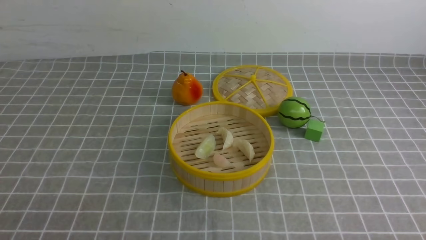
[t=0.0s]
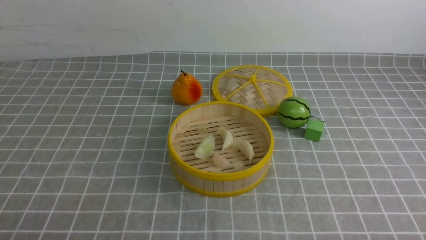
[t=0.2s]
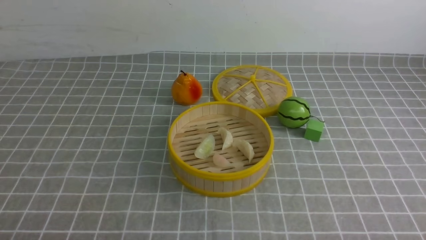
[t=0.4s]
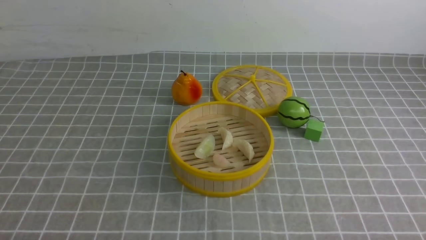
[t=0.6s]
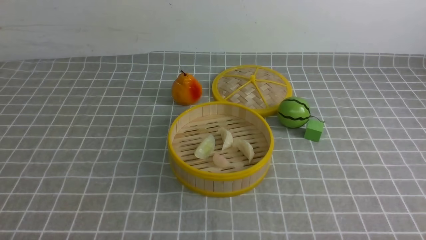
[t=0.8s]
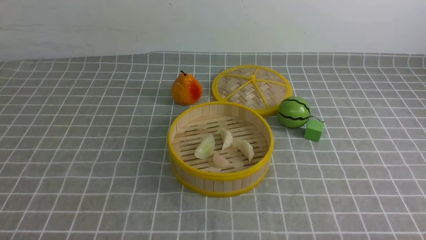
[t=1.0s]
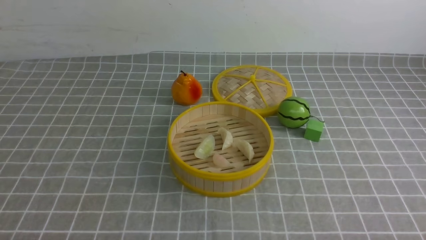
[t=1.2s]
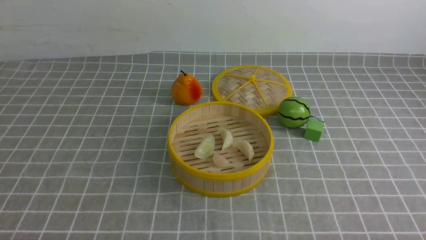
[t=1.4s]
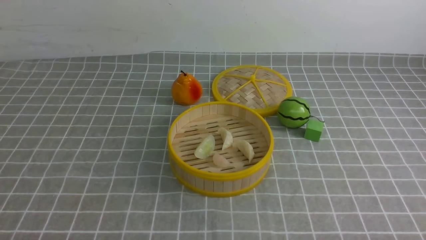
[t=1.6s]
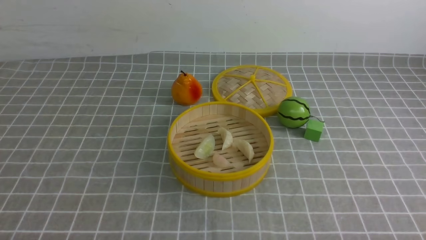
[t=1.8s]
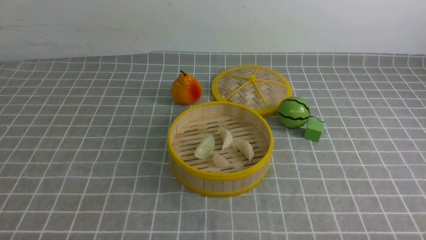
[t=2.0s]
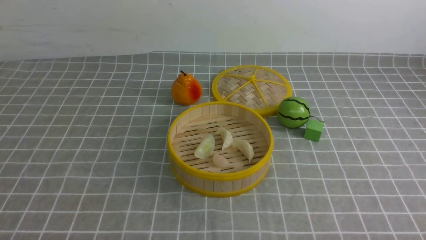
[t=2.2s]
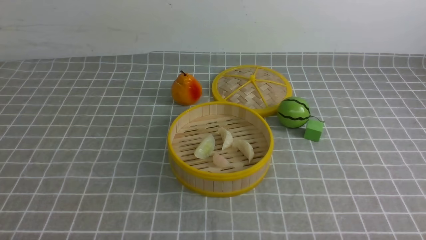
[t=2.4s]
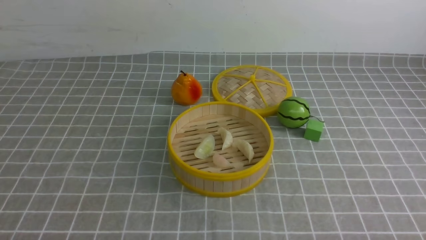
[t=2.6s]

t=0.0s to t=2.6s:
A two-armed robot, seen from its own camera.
Task of the whole recording: put the dumplings into the steamer on the table with the grey tablecloth.
t=1.2s to t=2.6s: Neither gripper changes place.

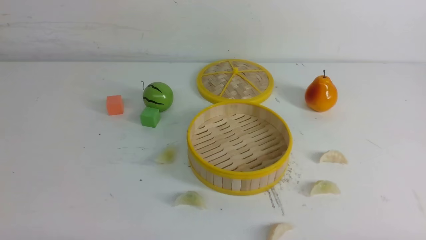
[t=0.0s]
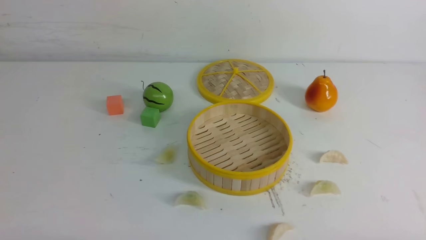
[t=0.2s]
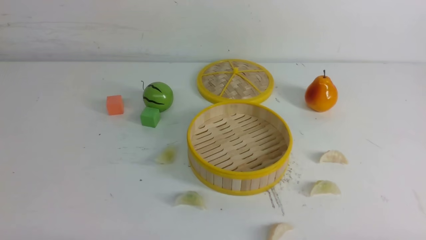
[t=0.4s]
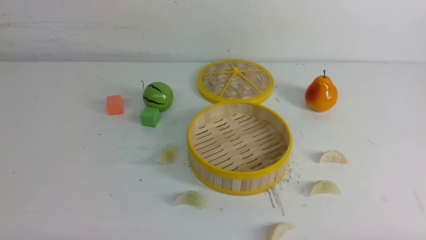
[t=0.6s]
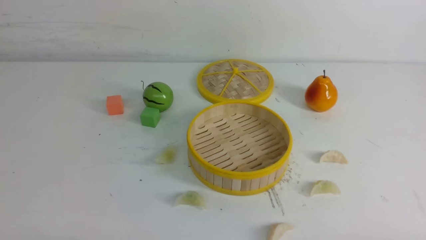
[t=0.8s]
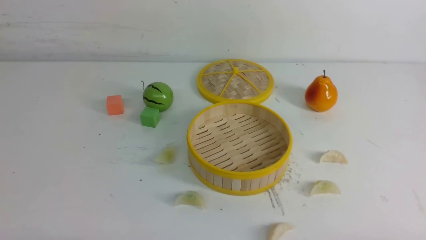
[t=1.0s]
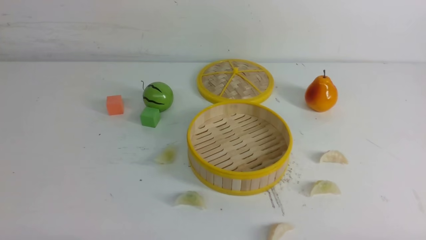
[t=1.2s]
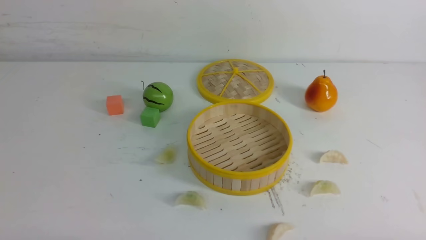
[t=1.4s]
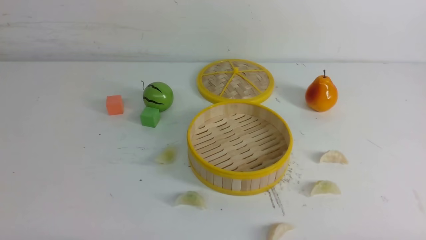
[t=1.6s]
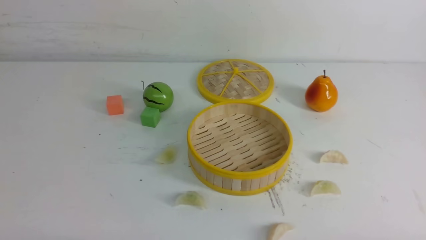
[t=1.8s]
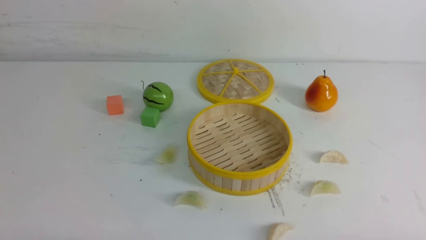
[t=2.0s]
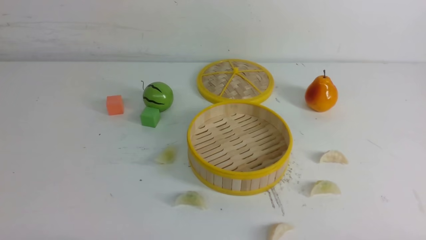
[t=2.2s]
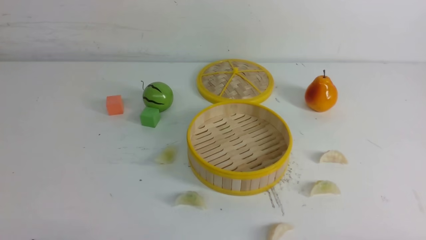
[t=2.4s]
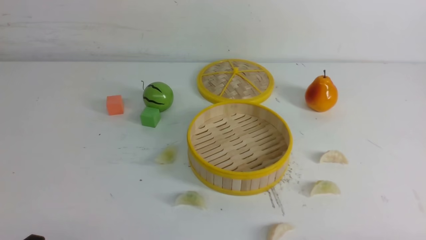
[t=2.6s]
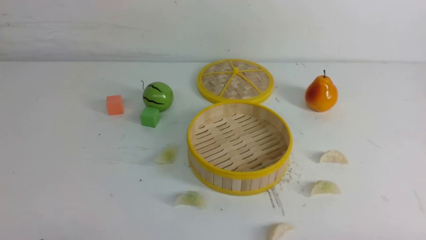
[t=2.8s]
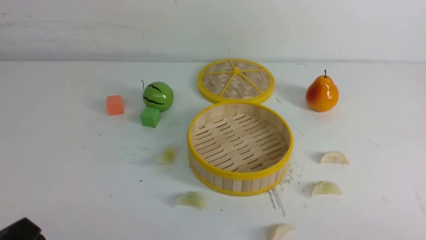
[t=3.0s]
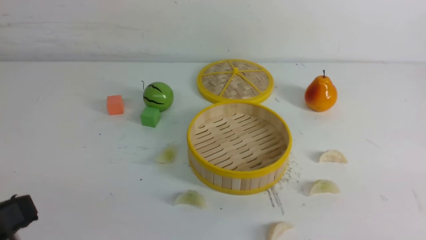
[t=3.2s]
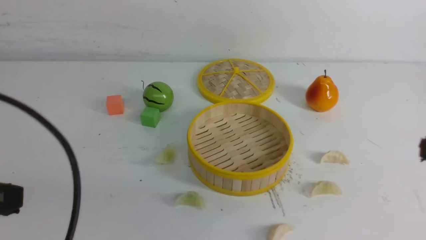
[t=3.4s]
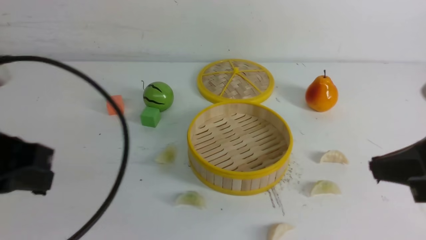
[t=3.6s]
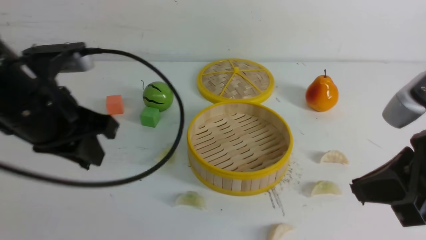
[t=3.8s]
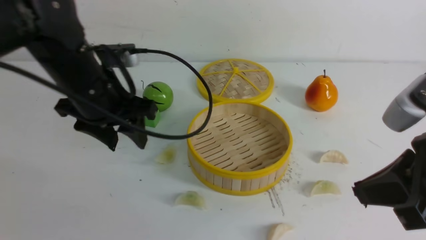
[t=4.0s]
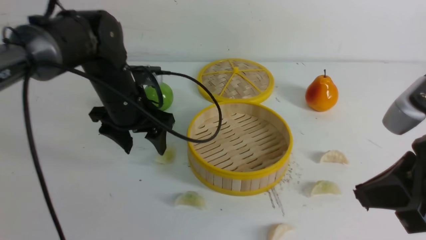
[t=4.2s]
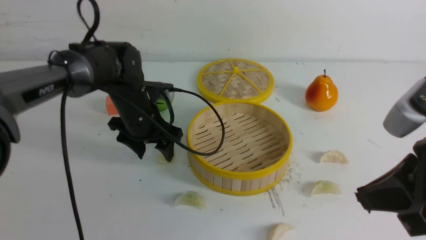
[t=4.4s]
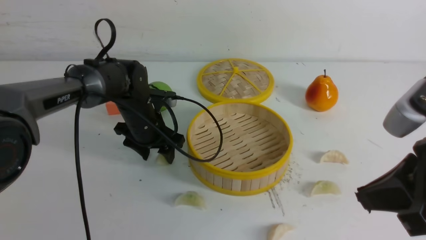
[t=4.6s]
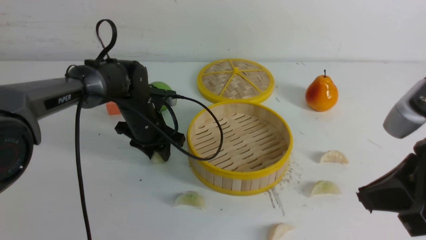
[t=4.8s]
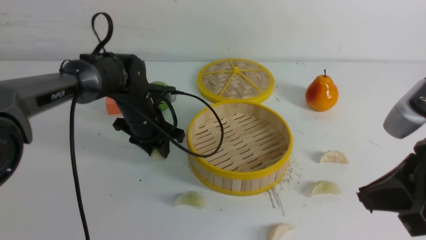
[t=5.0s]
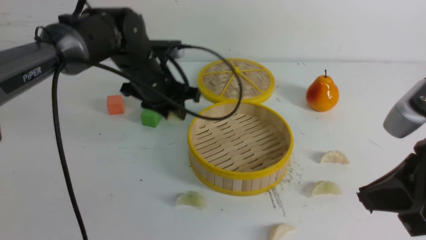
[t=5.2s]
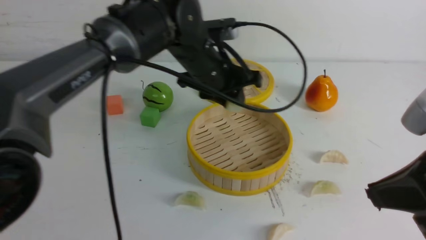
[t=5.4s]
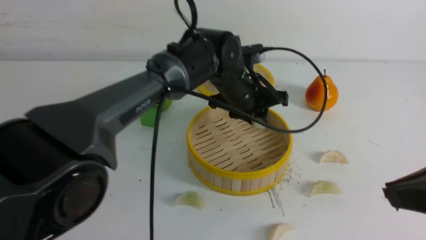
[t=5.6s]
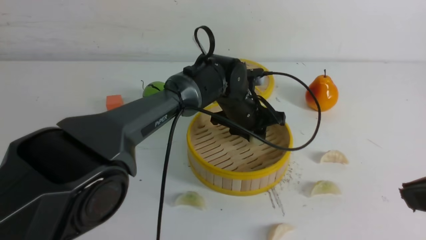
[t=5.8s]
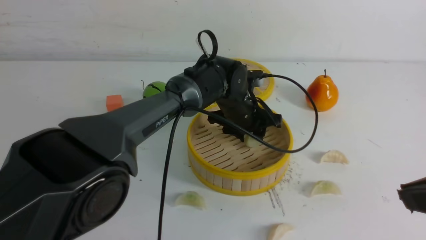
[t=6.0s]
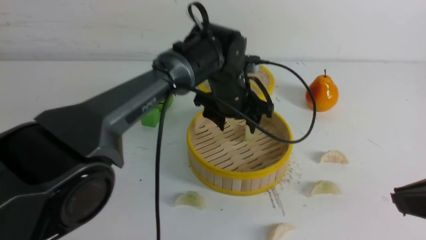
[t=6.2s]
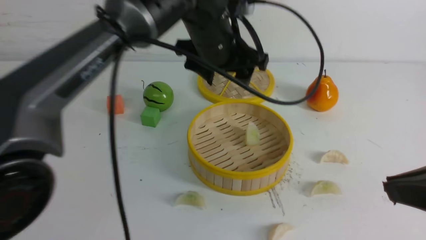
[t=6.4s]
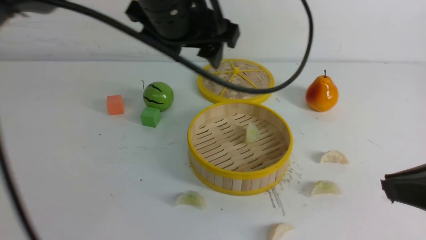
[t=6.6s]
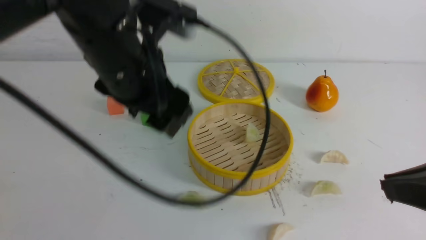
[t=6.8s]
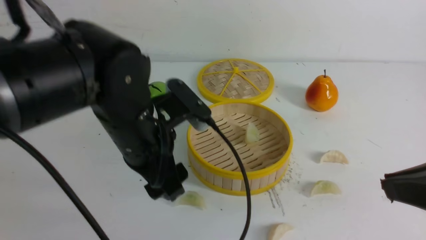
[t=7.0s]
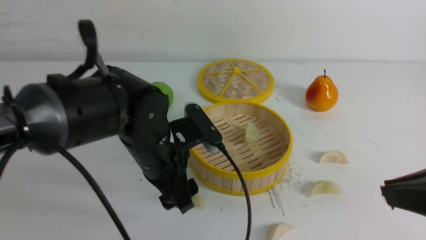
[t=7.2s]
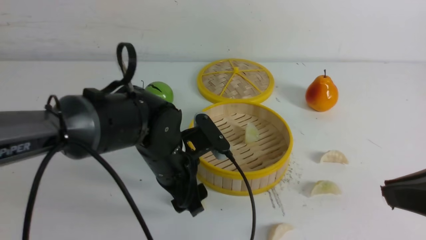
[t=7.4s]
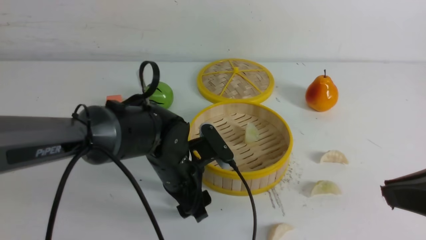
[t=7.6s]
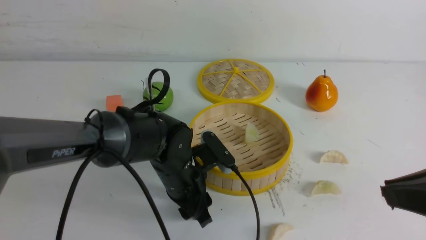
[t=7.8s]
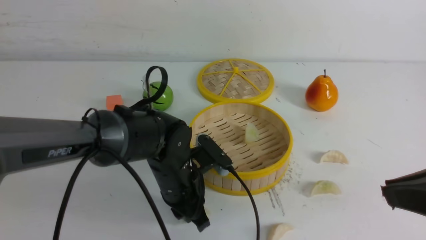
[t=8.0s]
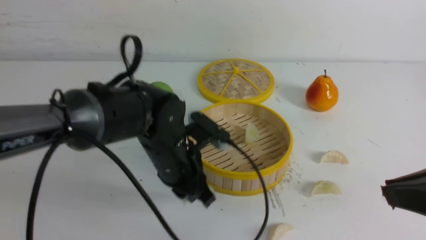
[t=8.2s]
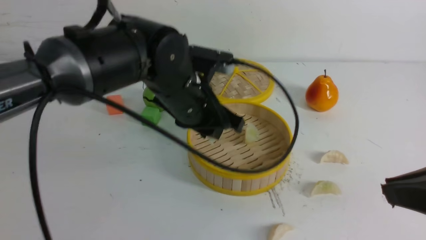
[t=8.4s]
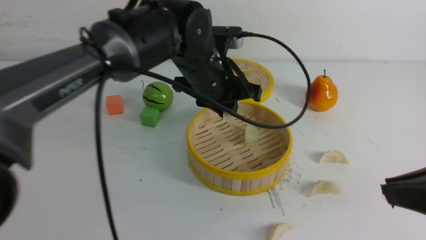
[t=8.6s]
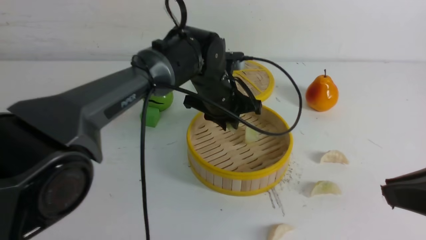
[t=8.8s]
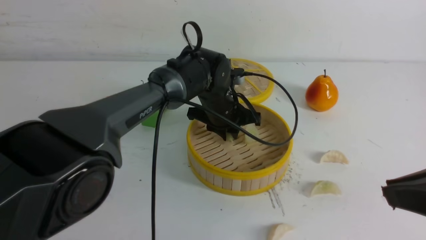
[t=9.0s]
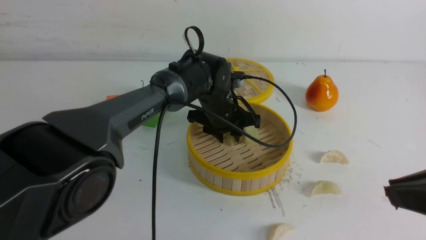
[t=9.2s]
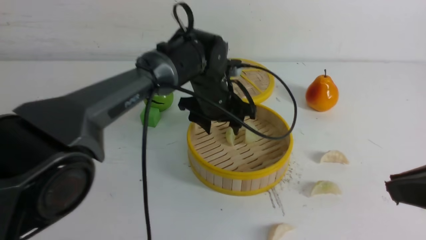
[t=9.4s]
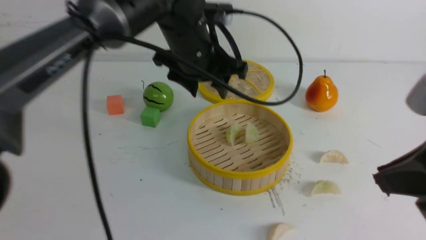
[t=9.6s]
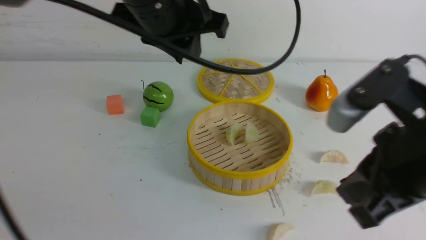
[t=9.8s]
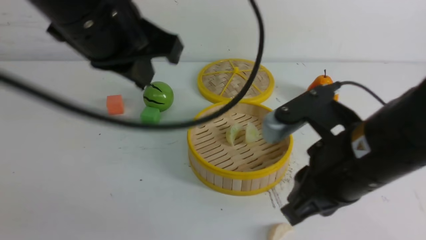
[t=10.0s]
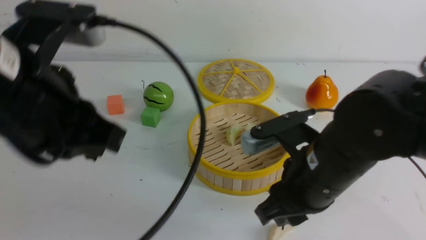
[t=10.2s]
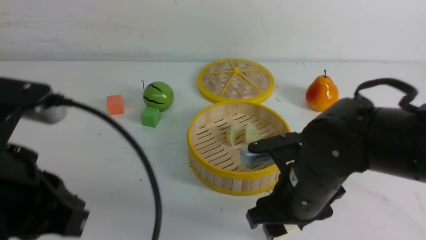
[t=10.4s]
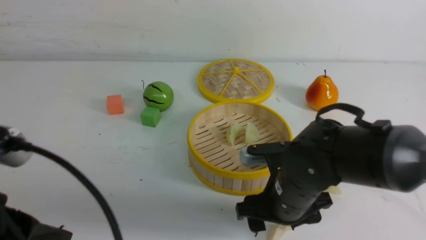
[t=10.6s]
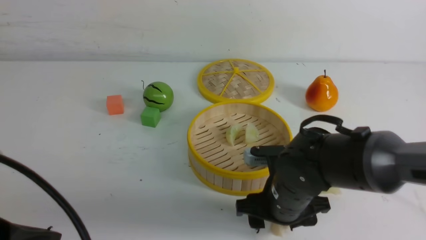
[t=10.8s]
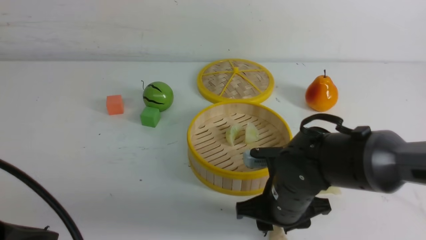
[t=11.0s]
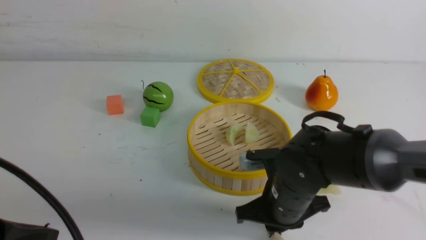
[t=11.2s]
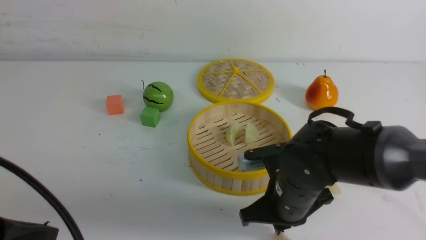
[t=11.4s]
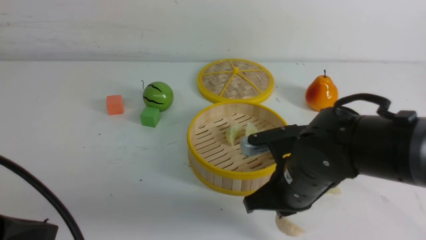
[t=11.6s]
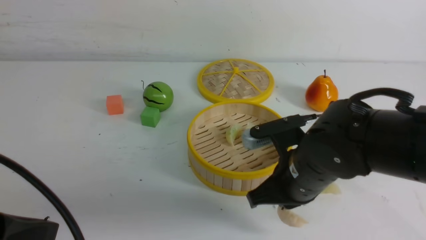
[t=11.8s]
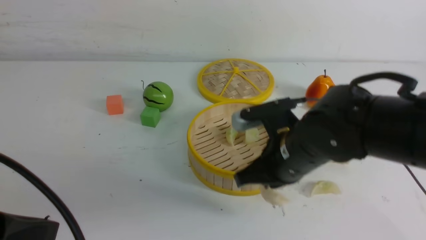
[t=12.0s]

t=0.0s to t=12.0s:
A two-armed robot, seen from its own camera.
Task of the whole recording: put the dumplings into the steamer on the white table.
Step, t=0.0s to t=5.0s: use the left arm to grab a dumpling.
Step, t=5.2s to t=6.2s: use the left arm to put the dumpling into the steamer.
Step, t=6.4s to t=8.0s: use the left arm to grab a dumpling.
Step, t=8.2s to t=9.4s: use the left arm to put the dumpling into the steamer.
Step, t=9.6s to t=11.4s: use the right arm to grab a dumpling.
t=0.0s to t=1.6s: The two grippers keep their place.
t=1.6s to t=3.0s: The left gripper heads upward, covering roughly 10 cm.
t=3.0s to t=4.4s: The right gripper is displaced forward, upward and to the left by approximately 15 cm. Meanwhile the left gripper goes roughly 35 cm forward, and opens its fingers.
t=4.4s to t=6.0s: The left gripper travels to the right by about 15 cm; the right gripper shifts by some 5 cm.
t=6.0s to t=7.6s: The left gripper heads backward and to the left, covering about 15 cm, and goes upward and returns, approximately 20 cm each way.
t=7.6s to t=9.0s: The left gripper travels forward and to the right by approximately 15 cm, and closes up.
t=9.0s to t=10.4s: The right gripper is displaced to the left, downward and forward by approximately 20 cm, and opens. Meanwhile the left gripper shifts roughly 40 cm backward, to the left and upward, and closes.
t=10.4s to t=12.0s: The left gripper shifts by about 5 cm. The right gripper shifts by some 5 cm, and closes.

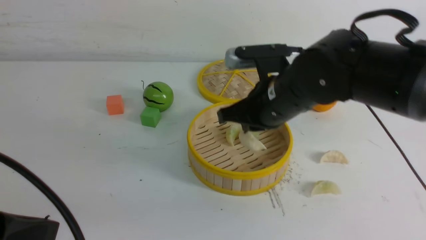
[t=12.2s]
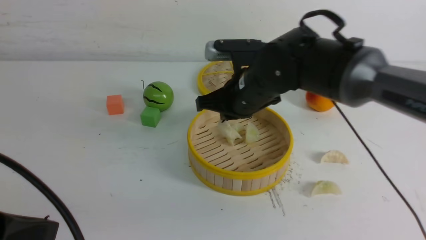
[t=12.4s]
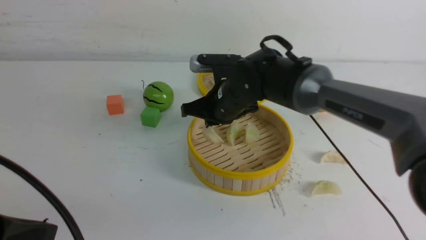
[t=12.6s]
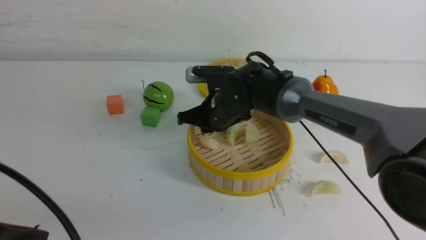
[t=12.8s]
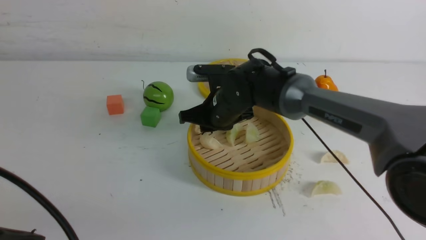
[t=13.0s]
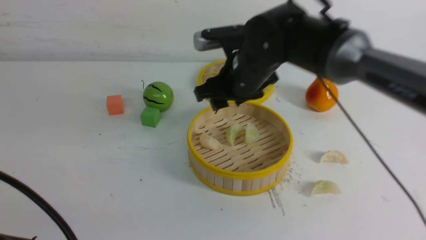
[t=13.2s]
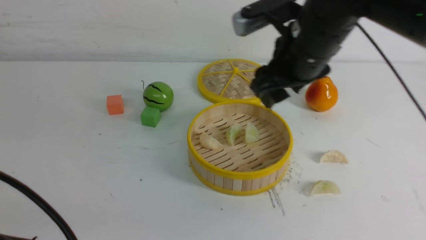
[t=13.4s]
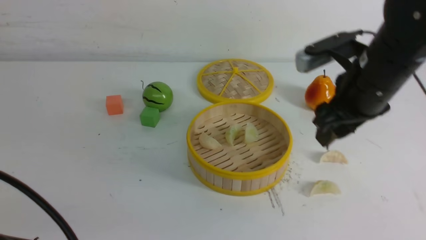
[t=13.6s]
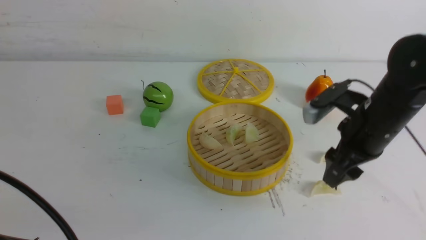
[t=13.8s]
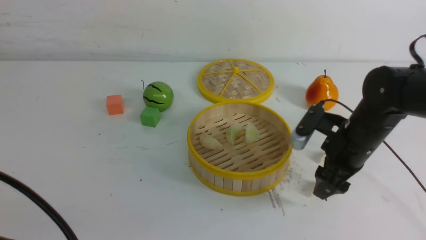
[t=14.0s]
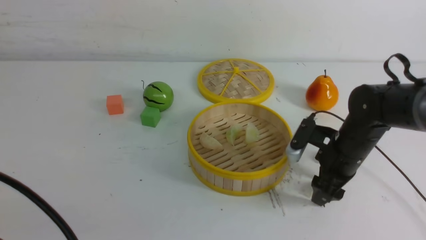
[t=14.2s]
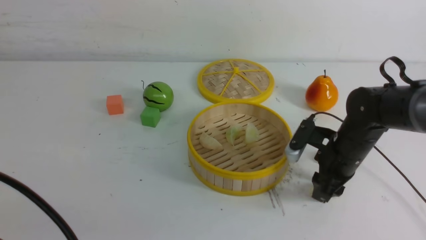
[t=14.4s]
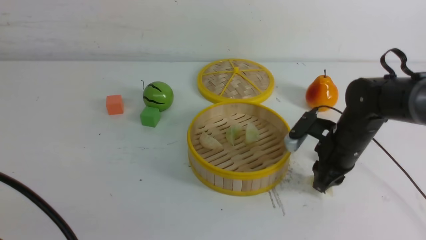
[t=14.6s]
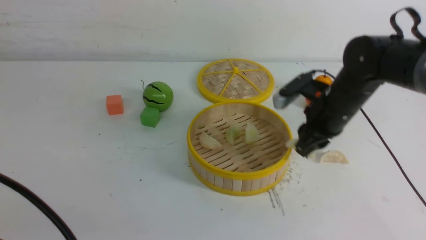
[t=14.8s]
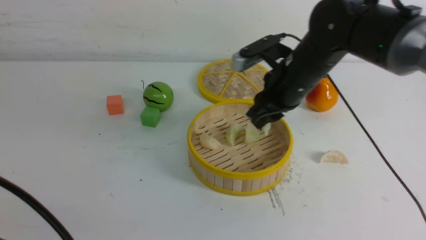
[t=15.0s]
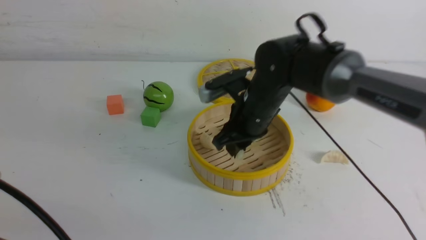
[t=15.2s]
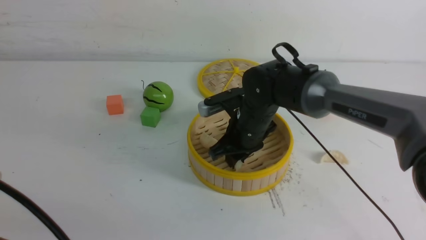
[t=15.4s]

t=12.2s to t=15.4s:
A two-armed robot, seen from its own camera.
Task of the whole recording: put the dumplings into the steamer on the white table.
Step, t=12.2s to t=13.2s: use the right arm to put the dumpling into the steamer.
Step, t=13.4s to t=14.6s: use the right arm to grab a dumpling.
t=12.2s to t=13.8s: The right gripper is displaced to the right by about 15 cm, and opens its fingers.
t=13.8s to t=15.4s: The right gripper moves to the left, roughly 15 cm, and closes its fingers.
